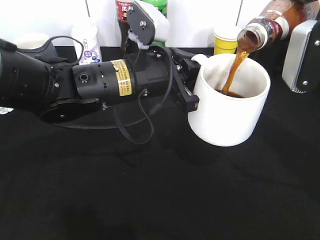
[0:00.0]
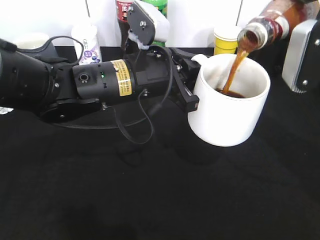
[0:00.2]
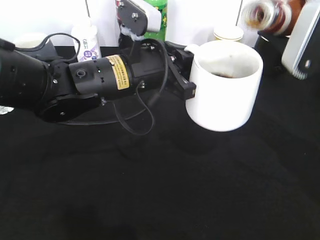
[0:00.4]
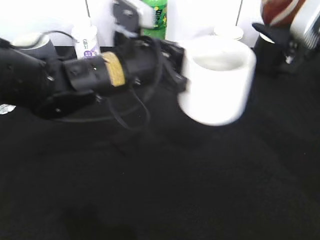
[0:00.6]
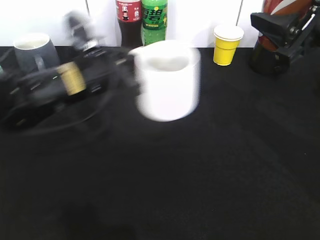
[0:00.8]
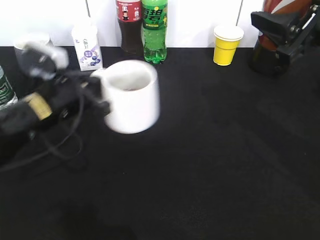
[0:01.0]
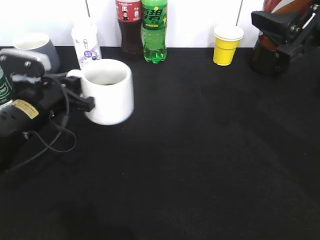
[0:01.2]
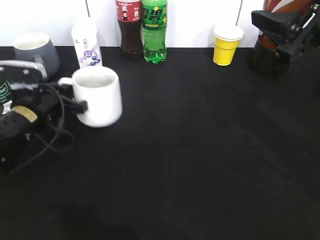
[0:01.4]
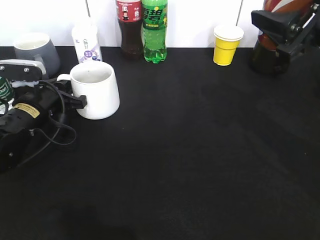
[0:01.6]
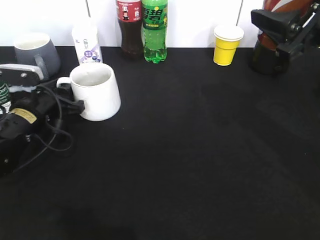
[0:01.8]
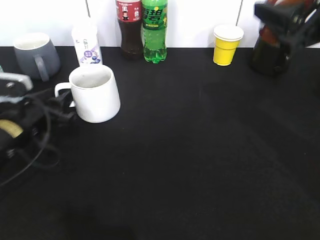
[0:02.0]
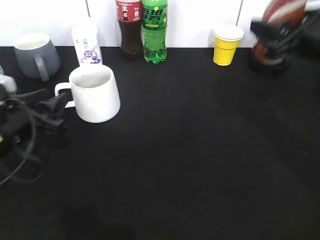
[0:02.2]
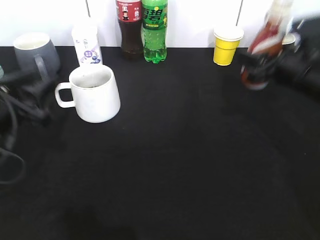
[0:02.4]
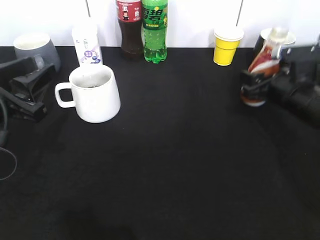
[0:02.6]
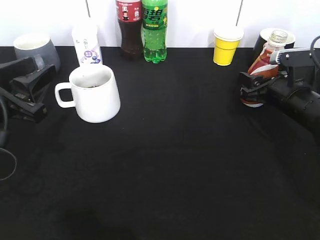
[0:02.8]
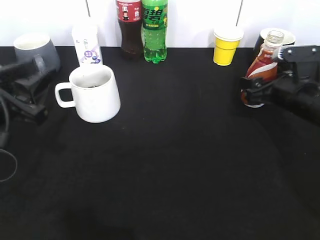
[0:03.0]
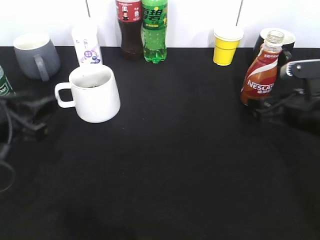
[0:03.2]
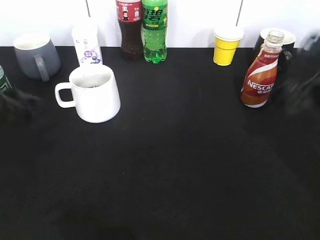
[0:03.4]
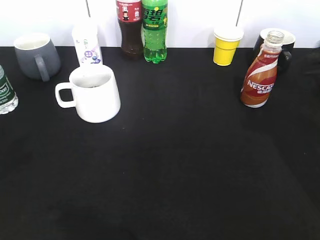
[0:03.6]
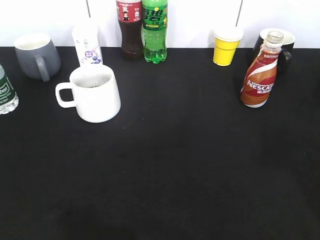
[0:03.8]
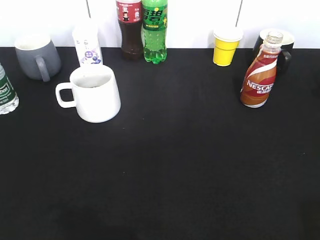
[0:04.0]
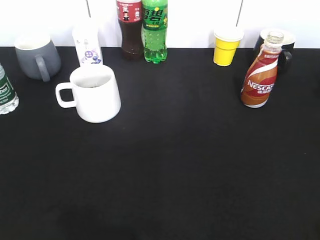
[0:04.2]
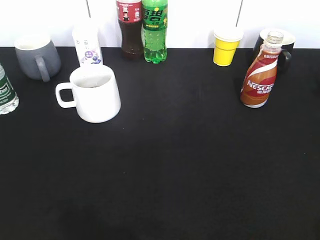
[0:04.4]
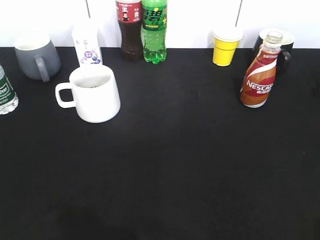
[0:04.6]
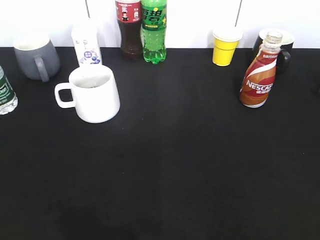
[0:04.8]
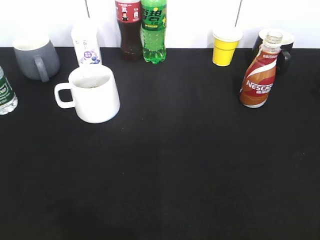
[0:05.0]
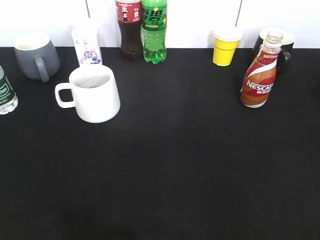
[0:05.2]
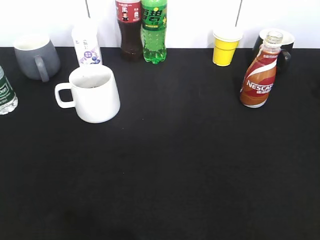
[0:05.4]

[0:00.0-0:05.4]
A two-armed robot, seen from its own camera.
Step, 0:01.0 to 0:02.2: Place the white cup on the table with left gripper.
Step, 0:02.4 to 0:03.2: Place the coffee bottle on the table with right gripper.
0:00.0 to 0:01.4: The left gripper goes approximately 20 cm to the left and downward.
0:01.4 to 0:02.8: The left gripper shifts approximately 15 cm backward and upward, and opens. Meanwhile the right gripper moves downward and forward, roughly 20 cm.
0:02.8 to 0:04.0: The right gripper goes approximately 40 cm backward and upward, and opens, then closes once more. Meanwhile the left gripper shifts about 25 cm backward and upward.
0:04.0 to 0:05.4: The grippers move only a little.
